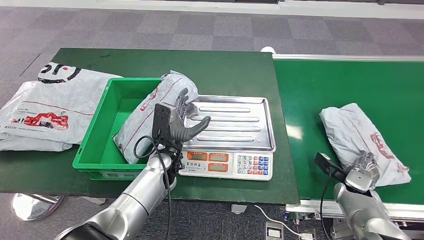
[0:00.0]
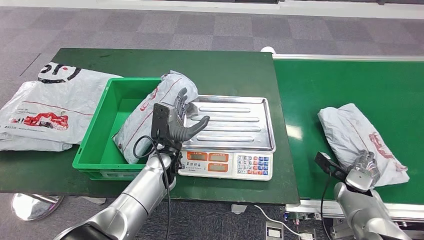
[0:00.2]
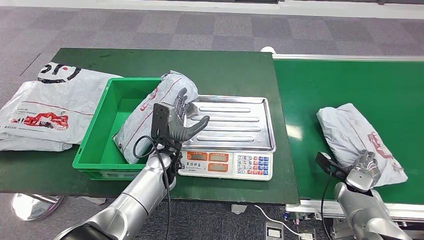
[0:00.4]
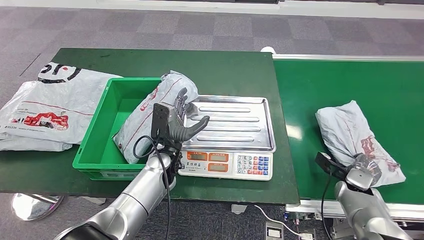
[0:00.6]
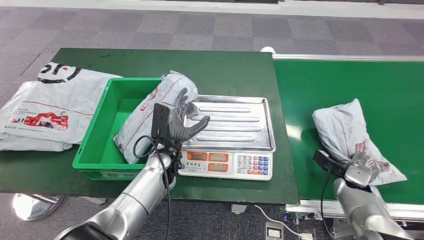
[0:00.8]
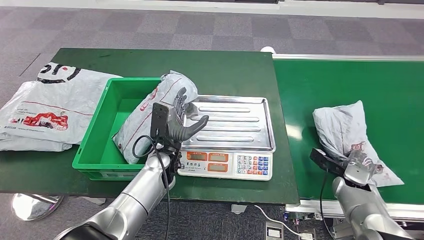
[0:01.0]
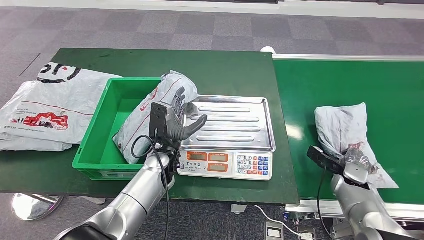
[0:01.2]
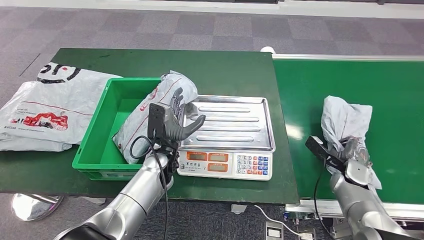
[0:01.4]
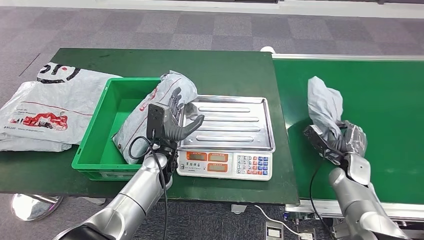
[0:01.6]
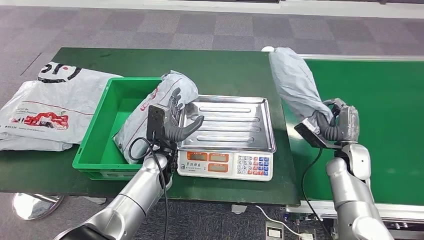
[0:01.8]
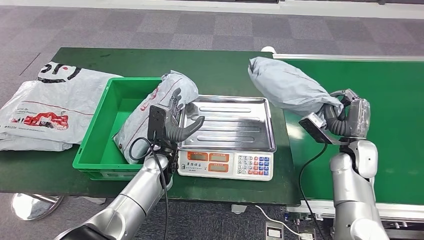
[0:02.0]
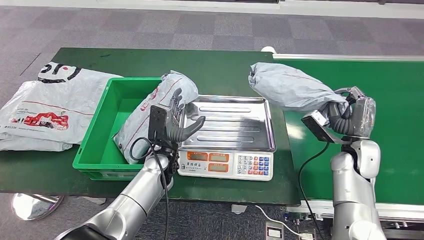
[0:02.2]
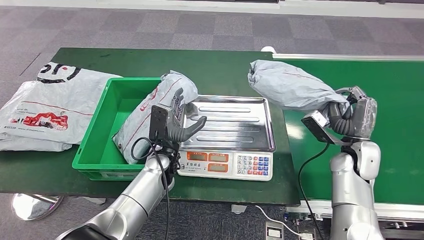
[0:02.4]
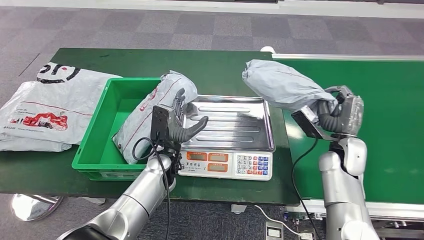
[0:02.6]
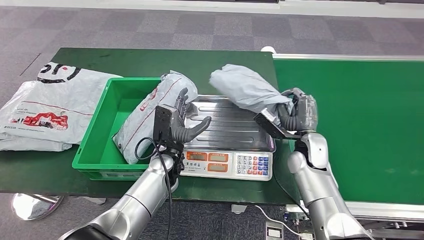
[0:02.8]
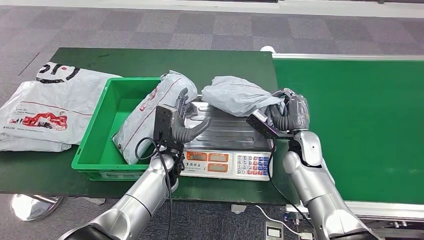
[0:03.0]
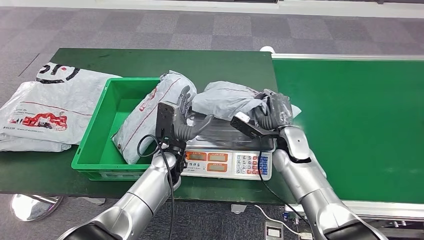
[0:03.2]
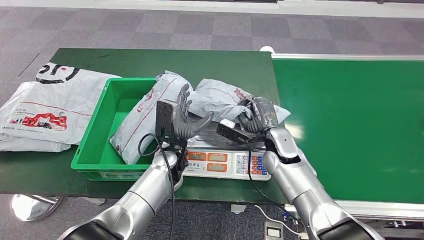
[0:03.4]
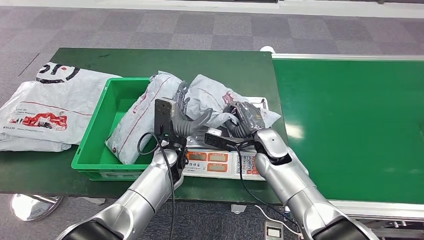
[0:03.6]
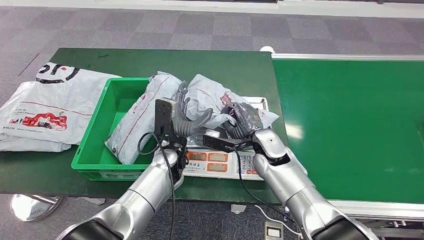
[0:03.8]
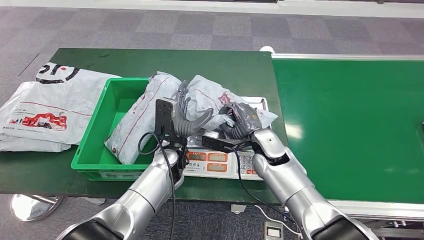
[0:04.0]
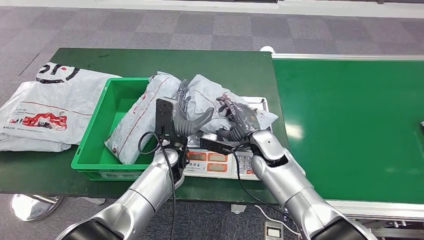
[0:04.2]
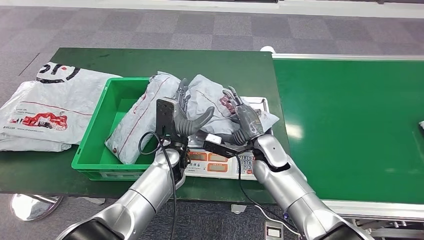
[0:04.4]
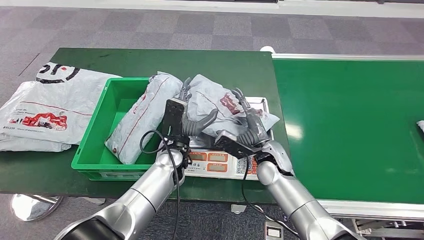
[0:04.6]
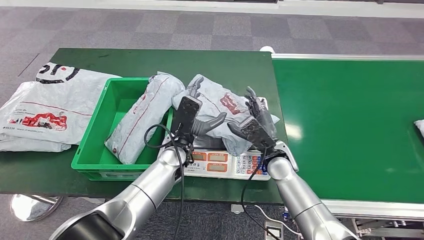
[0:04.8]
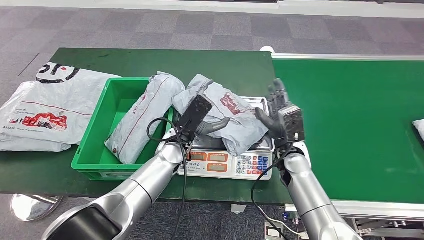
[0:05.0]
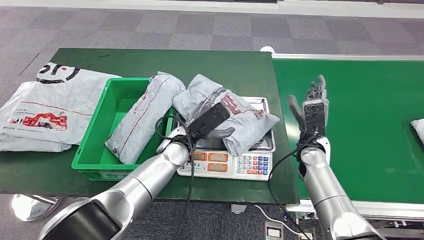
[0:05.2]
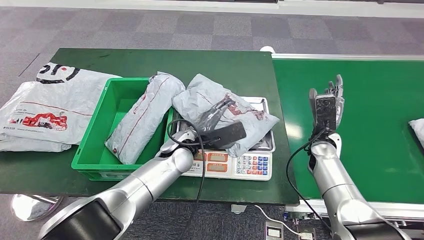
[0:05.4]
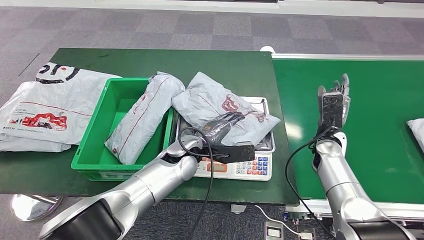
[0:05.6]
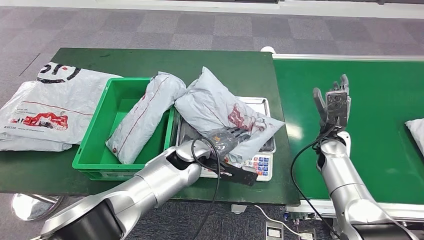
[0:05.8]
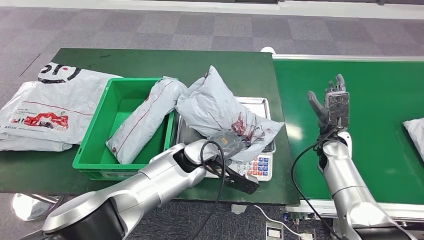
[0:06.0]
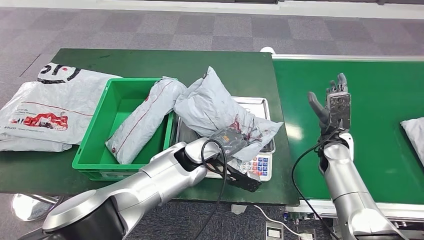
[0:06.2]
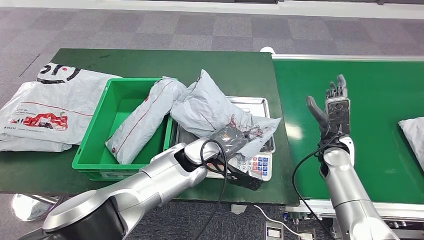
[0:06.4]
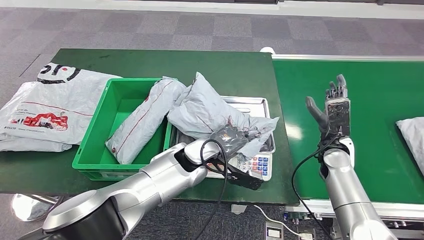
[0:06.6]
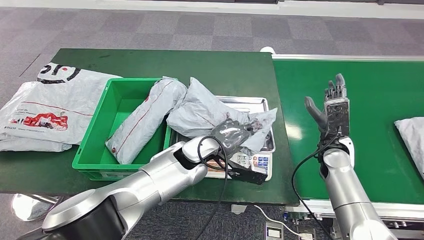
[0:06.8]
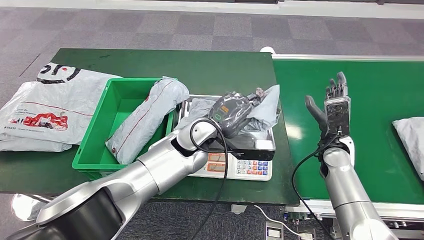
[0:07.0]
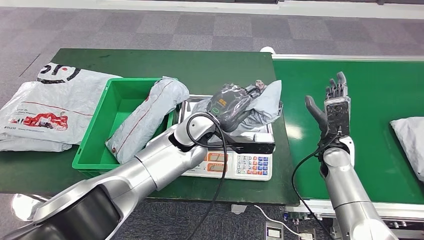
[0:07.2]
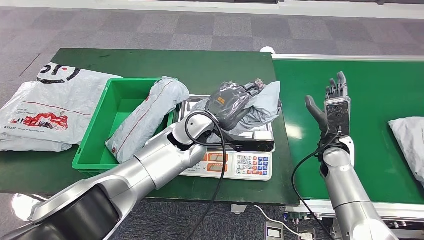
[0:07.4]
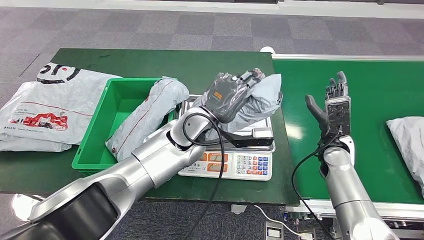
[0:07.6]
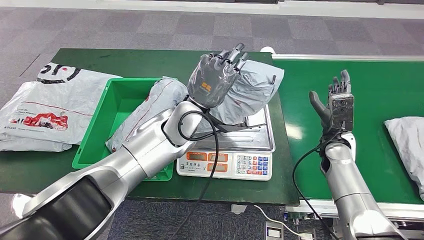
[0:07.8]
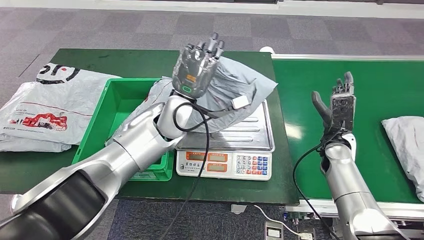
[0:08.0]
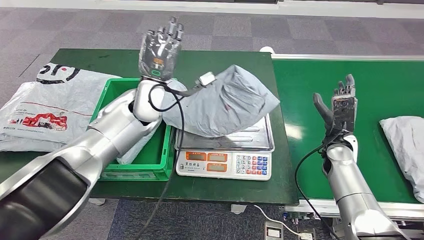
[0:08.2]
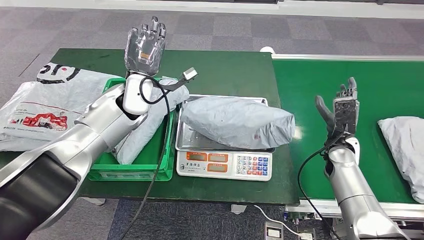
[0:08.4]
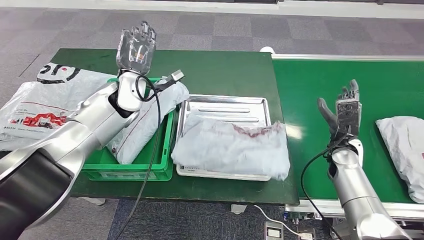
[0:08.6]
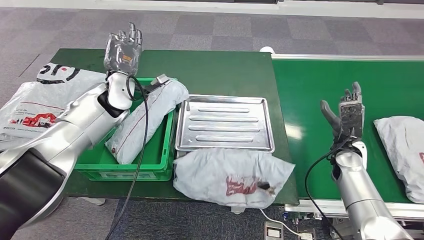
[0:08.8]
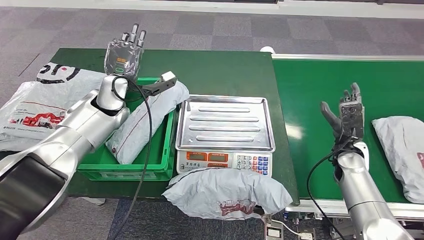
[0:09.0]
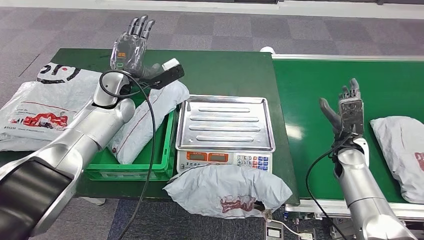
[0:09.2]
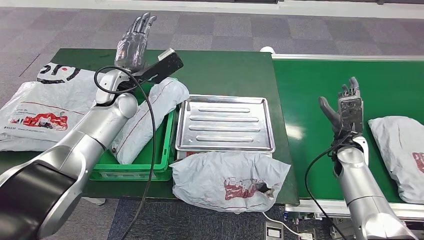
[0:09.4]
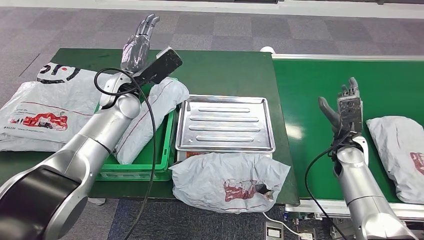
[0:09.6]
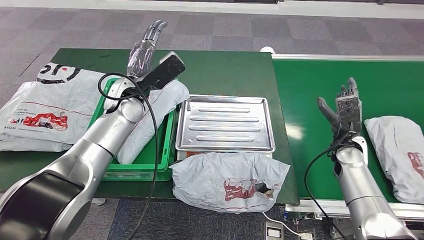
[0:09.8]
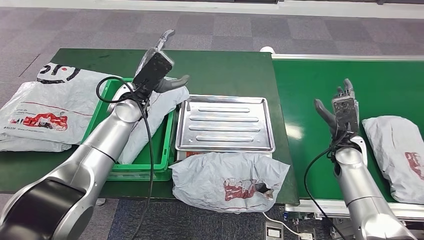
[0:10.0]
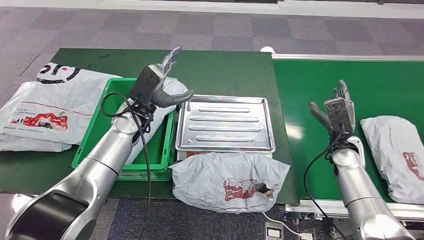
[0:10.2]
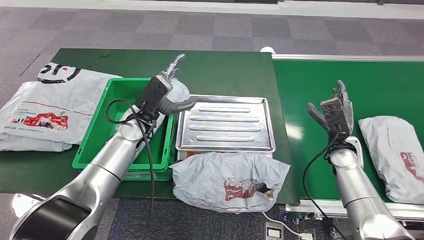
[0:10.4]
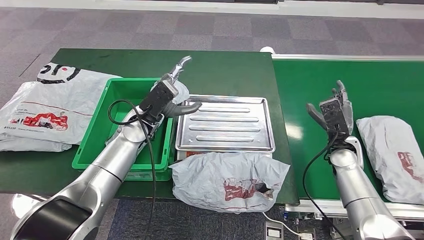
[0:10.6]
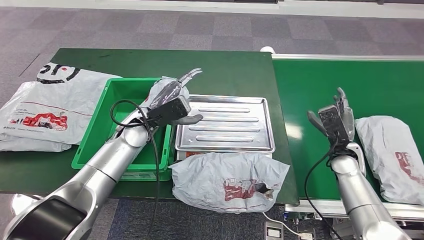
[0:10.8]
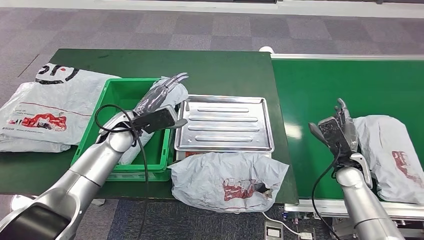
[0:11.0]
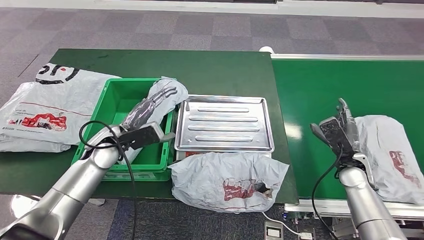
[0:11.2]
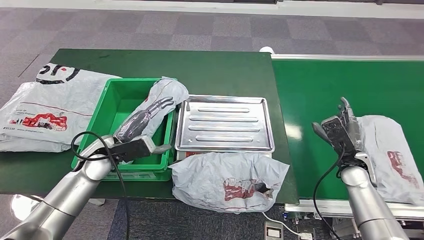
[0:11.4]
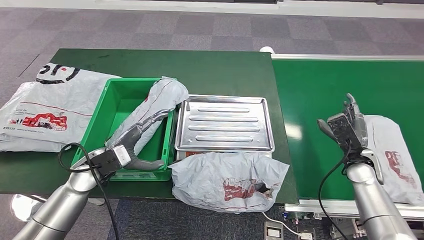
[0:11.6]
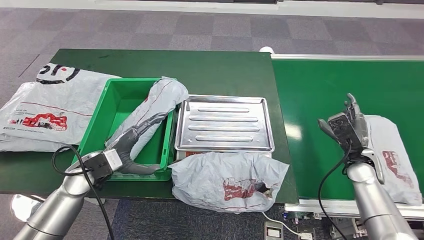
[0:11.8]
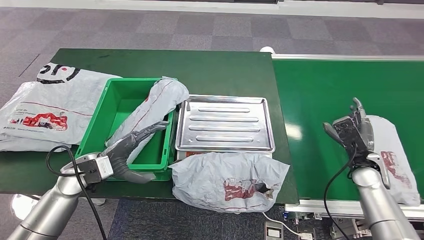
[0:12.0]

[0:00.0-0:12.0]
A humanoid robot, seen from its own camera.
0.0 to 1.6 s: The right hand changes place by approximately 5 cm.
3.0 to 4.4 s: The right hand is displaced to the left by about 10 cm.
10.4 to 12.0 s: The right hand travels to the right by some 5 cm. Meanwhile the left hand heads to the left and backward, covering some 15 cm.

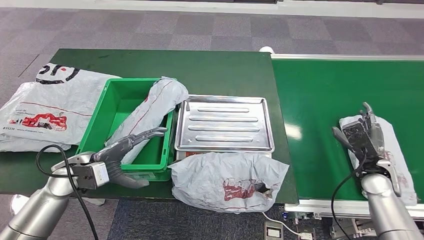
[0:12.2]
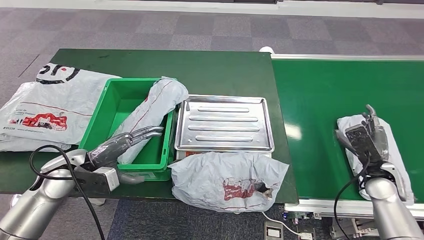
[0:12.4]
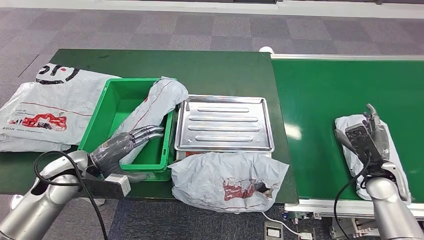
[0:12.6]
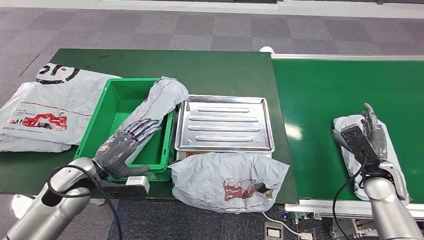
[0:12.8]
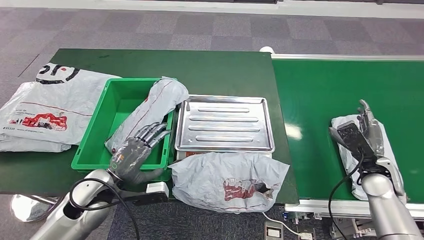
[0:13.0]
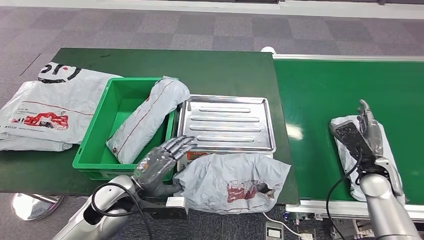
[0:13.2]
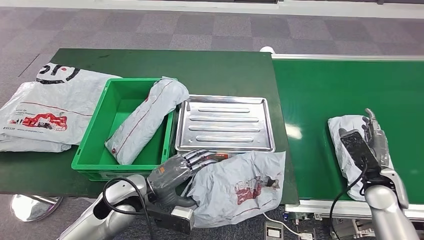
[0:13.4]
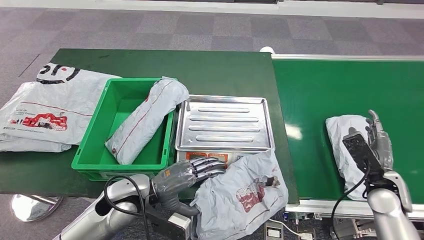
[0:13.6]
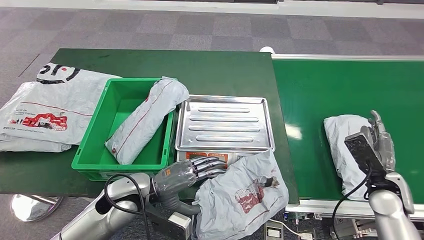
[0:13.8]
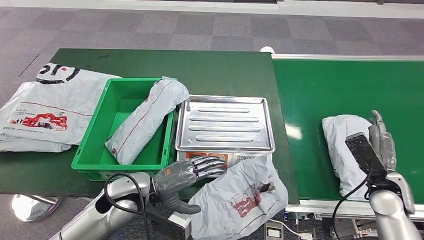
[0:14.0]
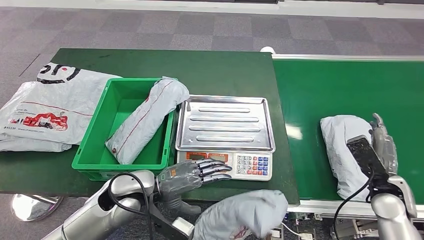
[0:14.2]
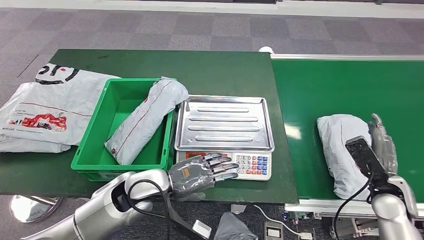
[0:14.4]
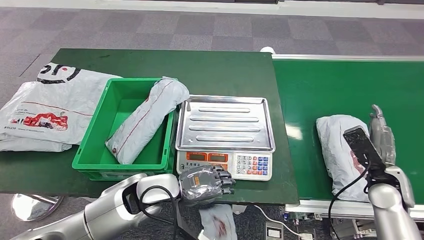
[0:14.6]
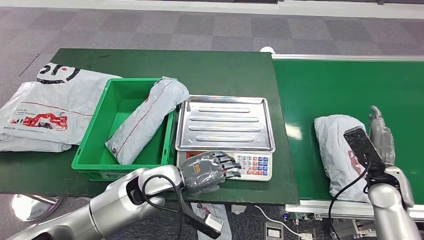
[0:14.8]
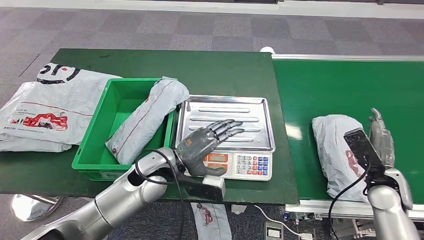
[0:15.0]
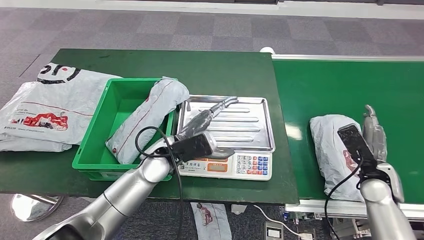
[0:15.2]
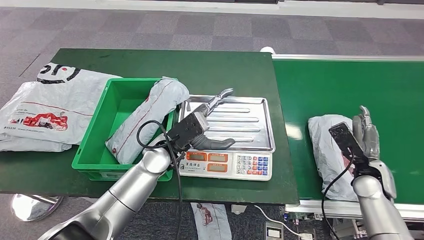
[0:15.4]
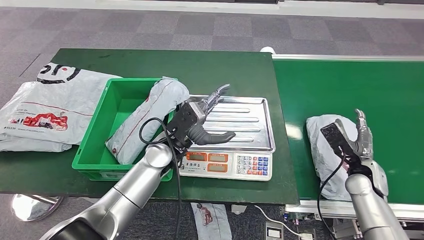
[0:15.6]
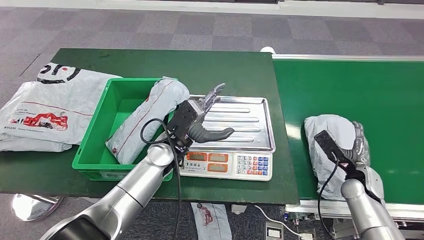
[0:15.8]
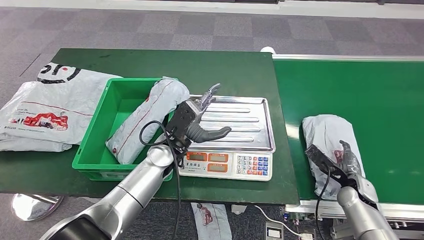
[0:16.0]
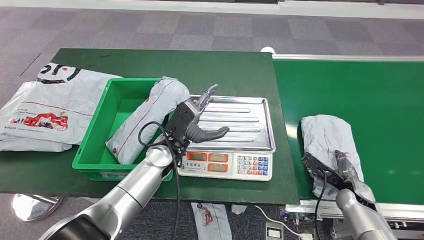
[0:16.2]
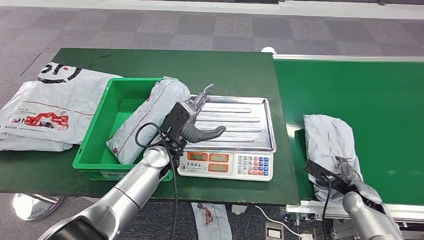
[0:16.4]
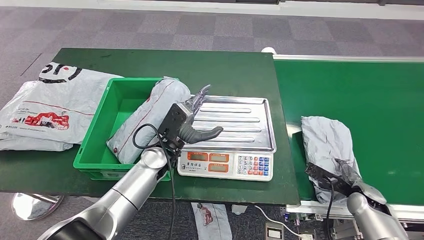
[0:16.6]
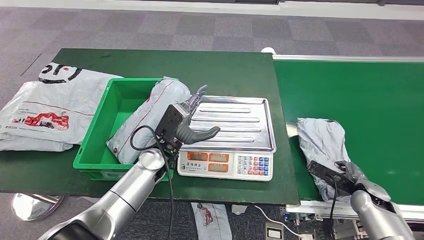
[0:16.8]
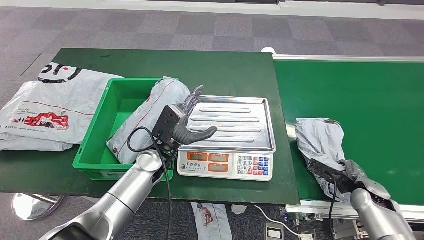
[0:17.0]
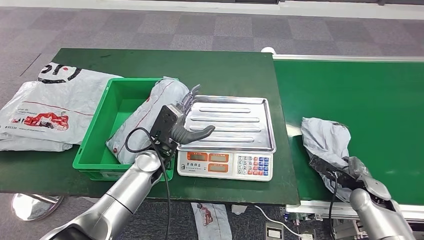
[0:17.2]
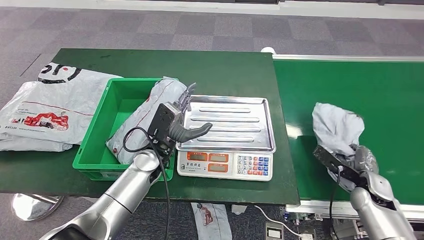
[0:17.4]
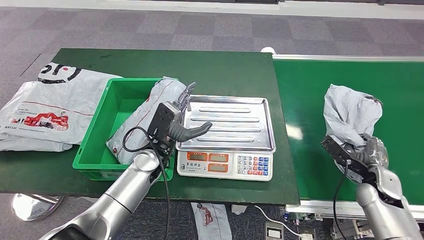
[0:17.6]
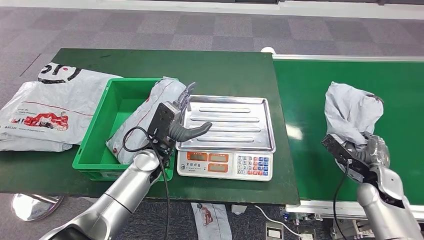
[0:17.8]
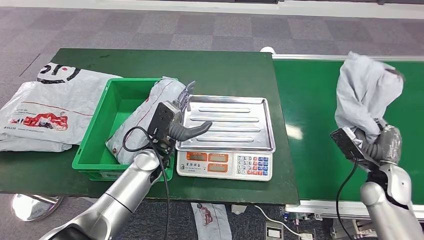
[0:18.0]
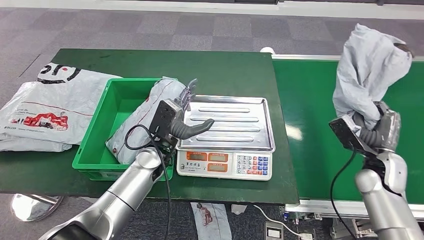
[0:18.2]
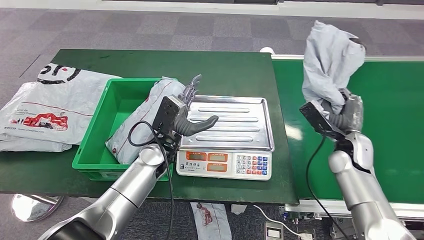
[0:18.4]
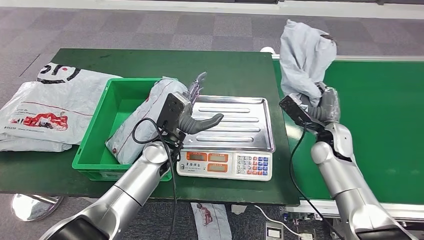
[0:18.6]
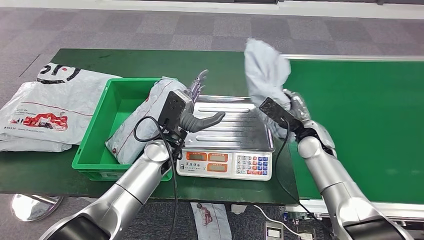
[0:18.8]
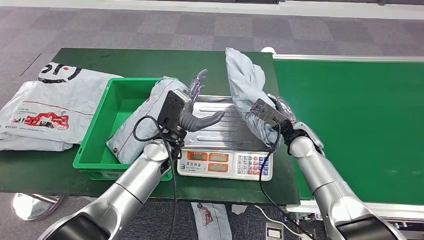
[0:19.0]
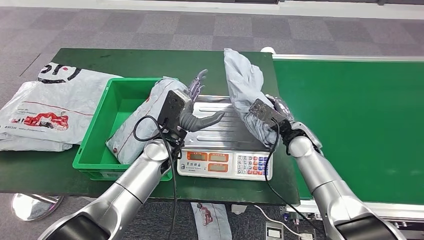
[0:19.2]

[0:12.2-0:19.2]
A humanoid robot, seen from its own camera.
Step, 17.0 to 18.4 s: Pick up the parcel from the conveyor belt.
13.6 to 15.0 s: The left hand moves to the right and forward, roughly 10 cm.
15.0 to 16.4 s: The right hand heads downward, covering some 10 cm.
16.4 to 17.8 s: The right hand goes roughly 5 cm upward.
